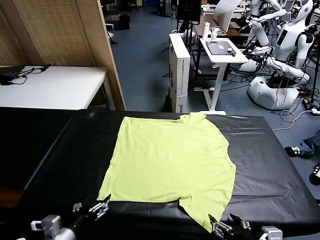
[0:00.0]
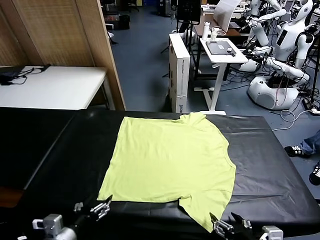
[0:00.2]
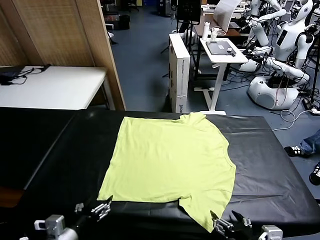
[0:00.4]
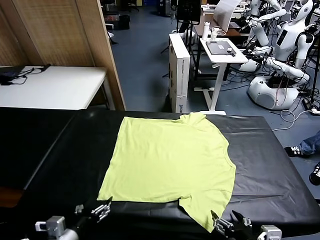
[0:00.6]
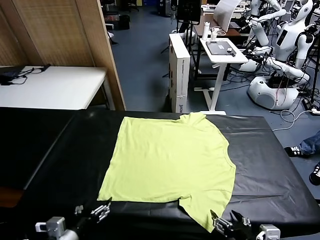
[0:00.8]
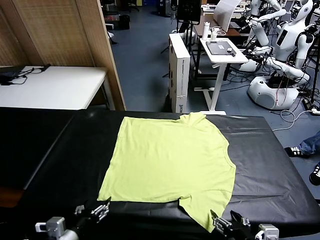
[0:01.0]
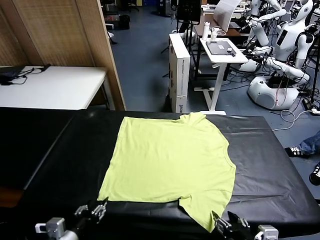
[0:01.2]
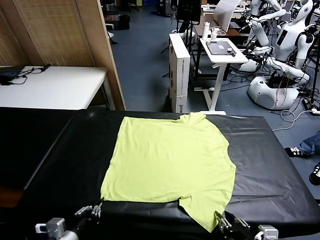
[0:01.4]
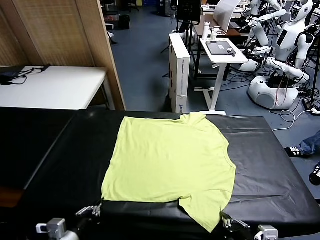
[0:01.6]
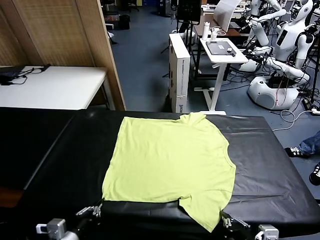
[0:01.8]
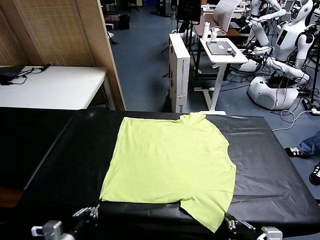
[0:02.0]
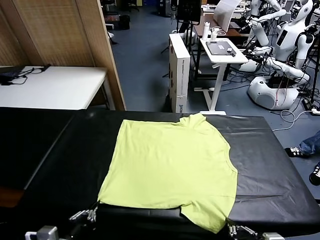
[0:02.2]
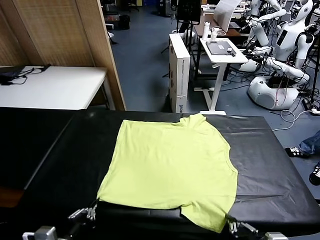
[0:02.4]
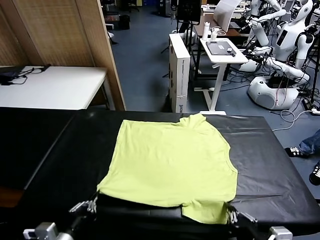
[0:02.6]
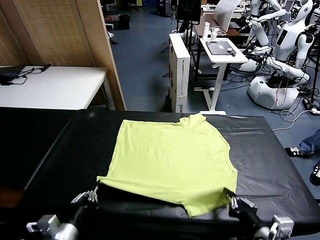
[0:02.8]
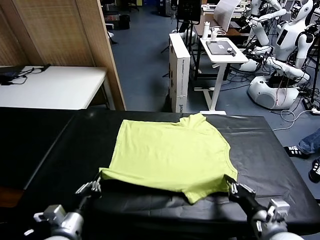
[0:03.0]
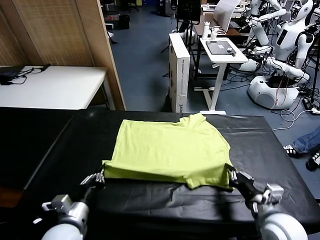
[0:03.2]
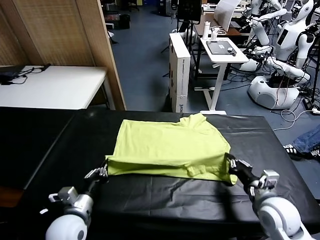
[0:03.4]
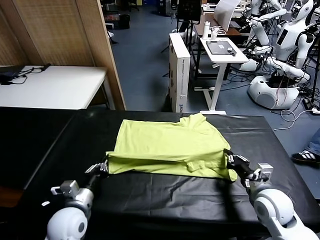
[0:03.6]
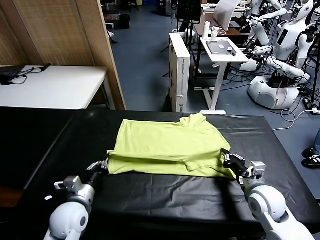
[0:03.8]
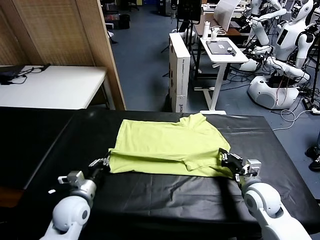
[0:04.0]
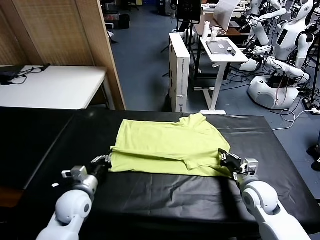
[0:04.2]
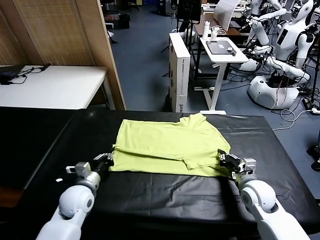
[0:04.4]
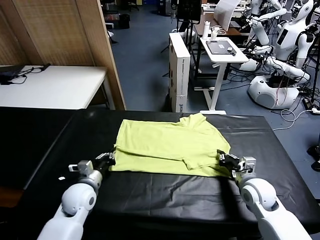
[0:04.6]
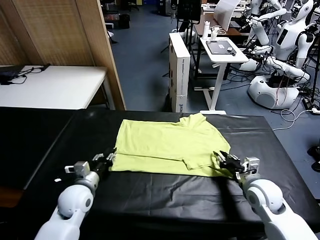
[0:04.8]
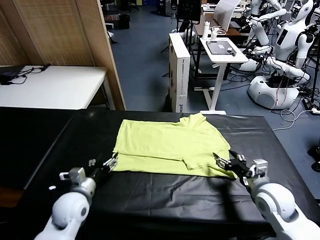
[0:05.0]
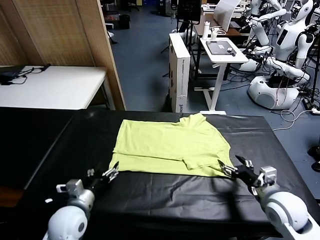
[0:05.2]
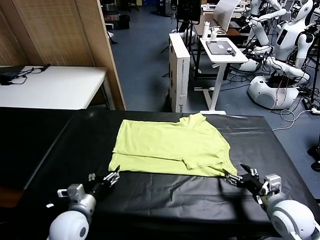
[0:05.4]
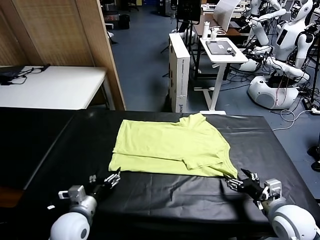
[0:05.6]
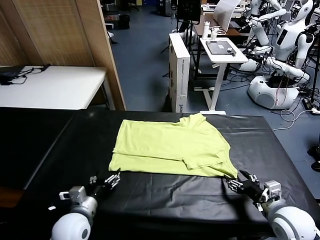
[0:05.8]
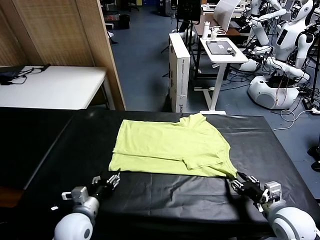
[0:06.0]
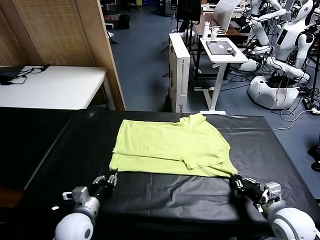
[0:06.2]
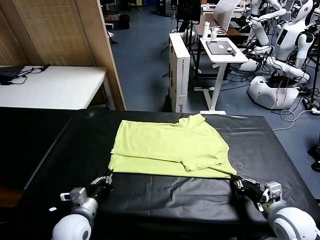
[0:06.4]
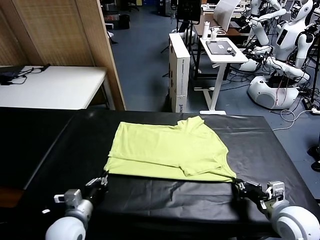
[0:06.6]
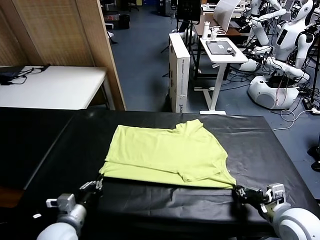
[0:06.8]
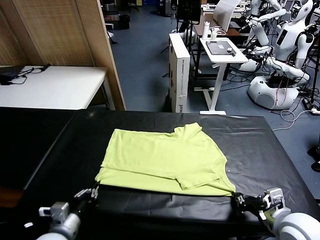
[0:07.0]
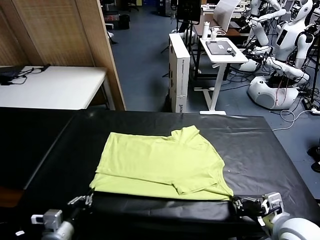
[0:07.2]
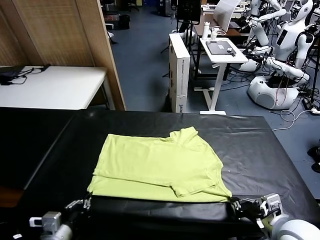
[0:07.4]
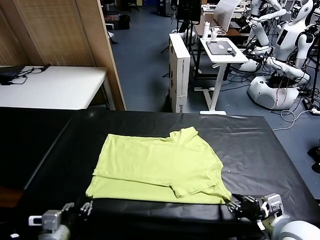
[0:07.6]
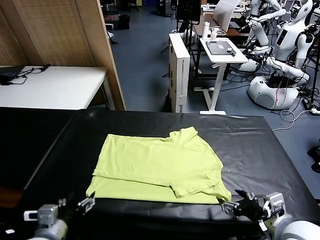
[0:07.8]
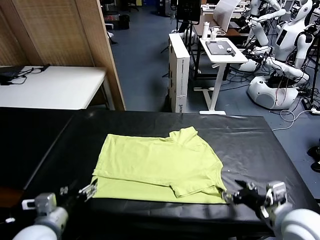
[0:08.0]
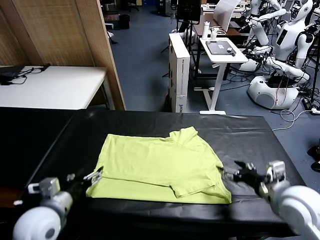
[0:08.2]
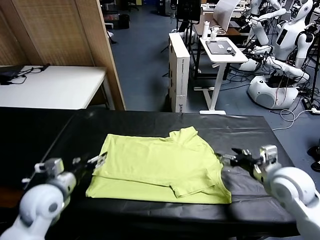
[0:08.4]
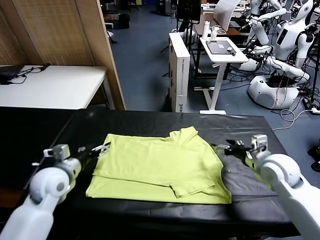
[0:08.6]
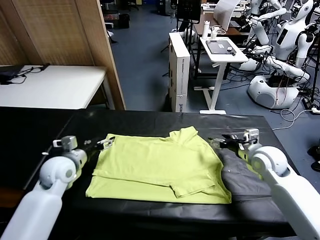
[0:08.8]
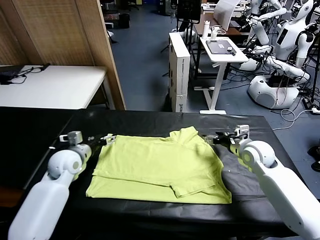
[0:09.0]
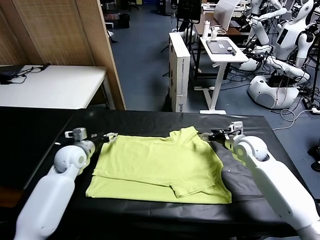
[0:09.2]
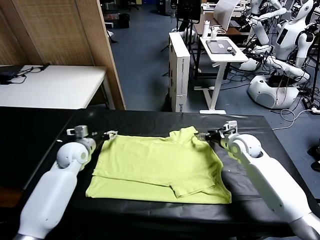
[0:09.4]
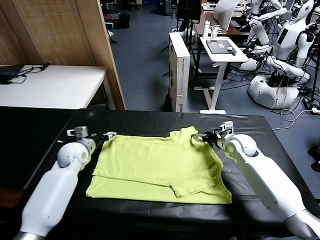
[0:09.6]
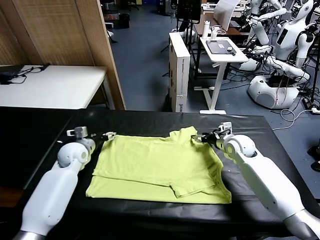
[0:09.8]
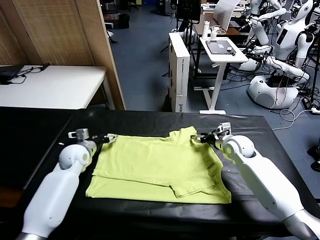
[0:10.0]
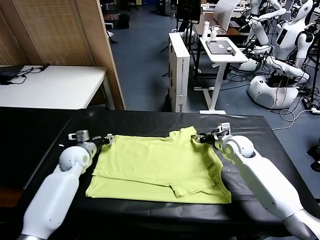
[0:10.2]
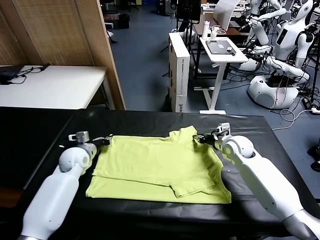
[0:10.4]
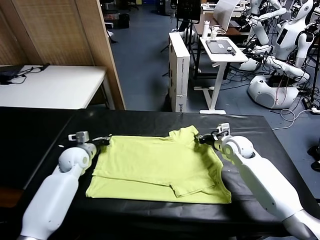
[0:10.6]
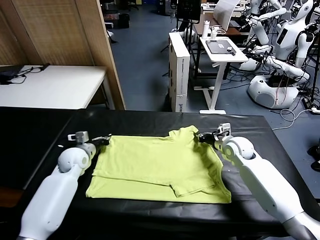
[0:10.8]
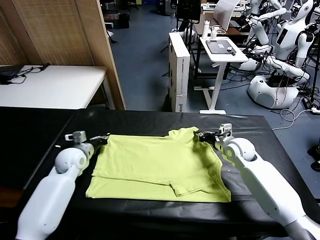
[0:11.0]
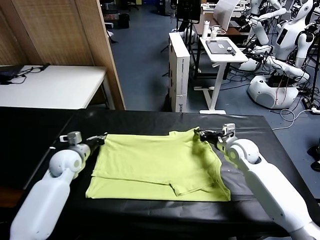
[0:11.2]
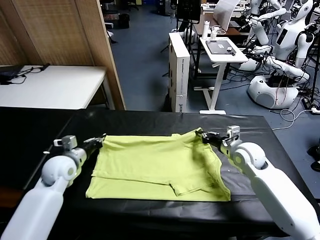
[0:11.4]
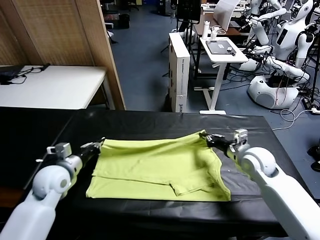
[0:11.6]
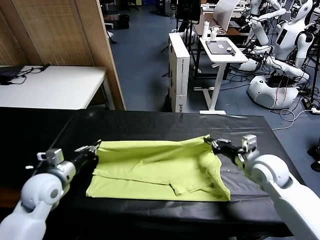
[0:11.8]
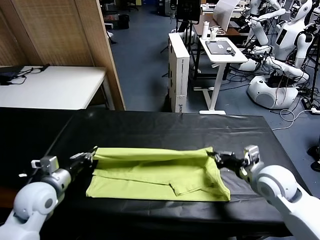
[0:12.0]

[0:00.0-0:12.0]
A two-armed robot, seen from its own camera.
Task of the whole recording: fold and organize the clothes.
Step, 0:00.0 to 0:01.6: use both grippers simultaneously to clamp the lower edge of the clothing fabric.
Step, 0:01.8 to 0:04.8: use both grippers to drag the lower edge of the fabric forward and fold it over the upper edge.
Step, 0:05.0 to 0:07.6: Drag the clothes downward with both gripper.
Step, 0:07.8 to 0:10.6: use both grippers simultaneously to clamp the upper edge of the clothing fabric.
0:01.6 to 0:03.0: The right gripper heads forward, covering roughly 15 cm. Meanwhile the left gripper is displaced forward by roughly 5 cm.
0:03.0 to 0:04.4: The left gripper goes about 10 cm forward. Meanwhile the right gripper heads forward, covering about 5 cm, and opens up.
0:04.4 to 0:06.0: Both grippers travel together backward, about 10 cm. The right gripper closes up; the left gripper opens, then closes once more.
0:06.0 to 0:07.6: The right gripper travels upward by some 10 cm, and opens its fingers. Meanwhile the left gripper heads upward and backward, covering about 10 cm, and opens its fingers.
0:07.6 to 0:09.0: Both grippers move forward, roughly 30 cm.
0:09.0 to 0:10.4: The left gripper closes its fingers; the right gripper closes its fingers.
0:10.4 to 0:12.0: Both grippers travel together backward, about 20 cm.

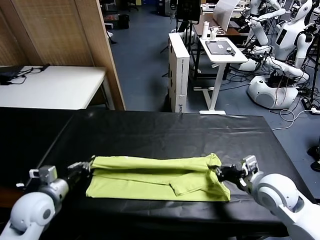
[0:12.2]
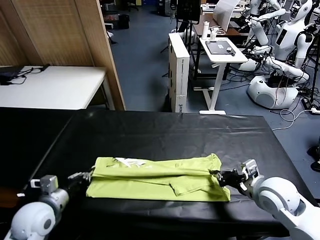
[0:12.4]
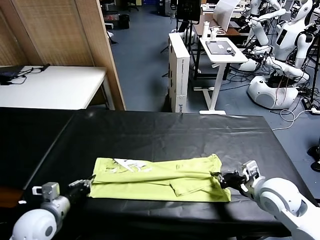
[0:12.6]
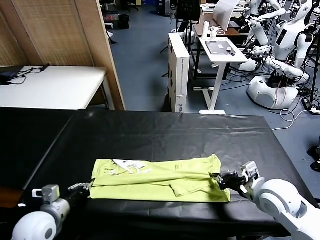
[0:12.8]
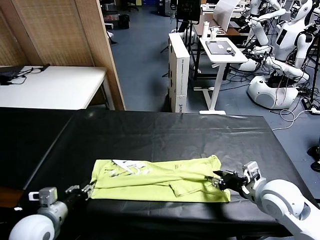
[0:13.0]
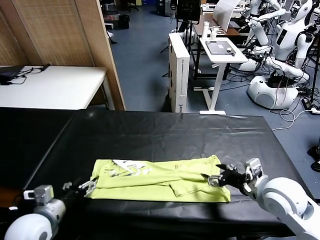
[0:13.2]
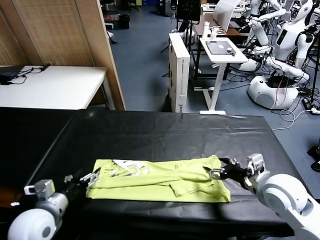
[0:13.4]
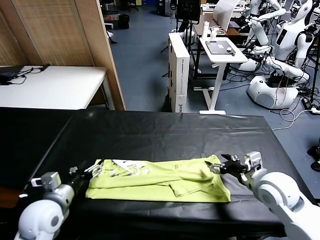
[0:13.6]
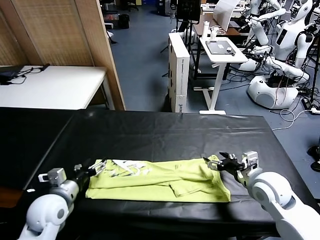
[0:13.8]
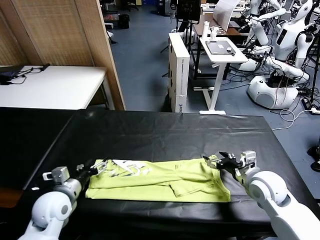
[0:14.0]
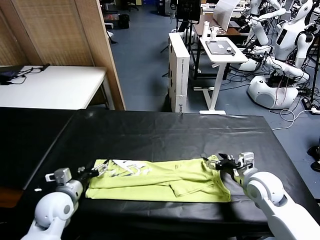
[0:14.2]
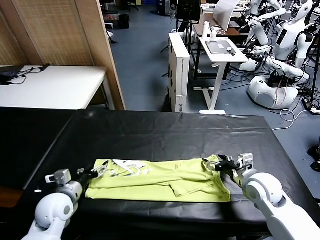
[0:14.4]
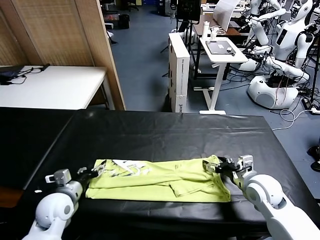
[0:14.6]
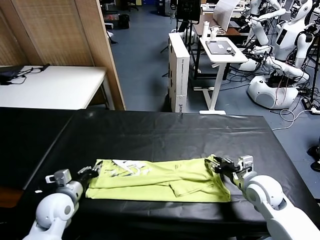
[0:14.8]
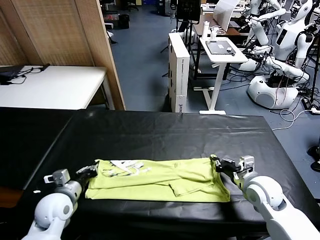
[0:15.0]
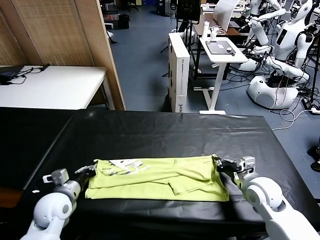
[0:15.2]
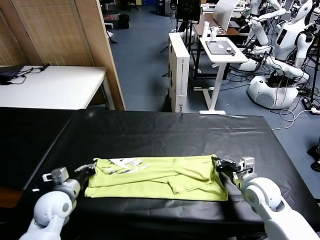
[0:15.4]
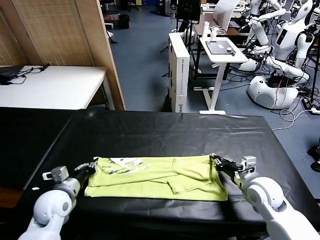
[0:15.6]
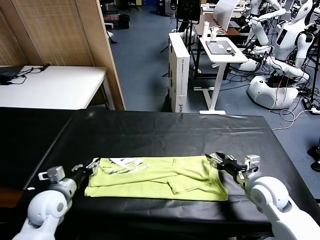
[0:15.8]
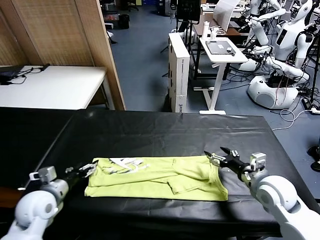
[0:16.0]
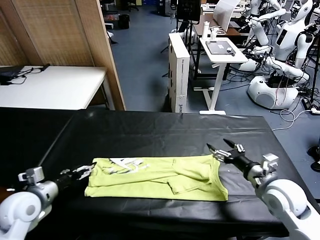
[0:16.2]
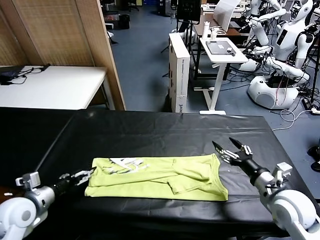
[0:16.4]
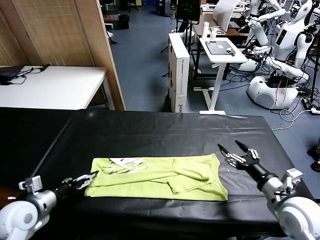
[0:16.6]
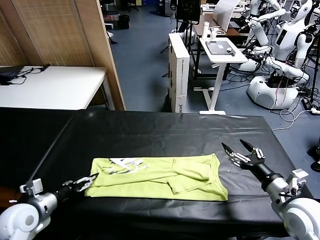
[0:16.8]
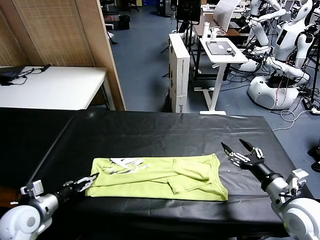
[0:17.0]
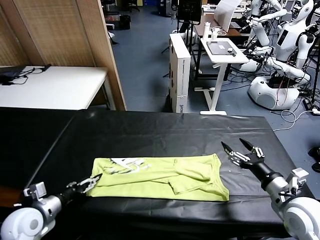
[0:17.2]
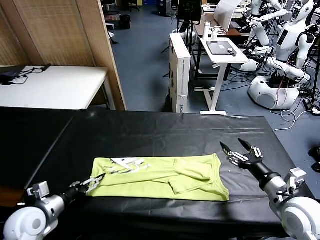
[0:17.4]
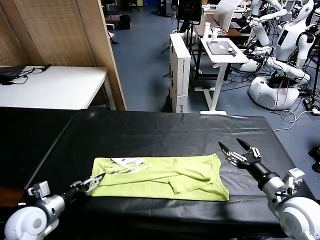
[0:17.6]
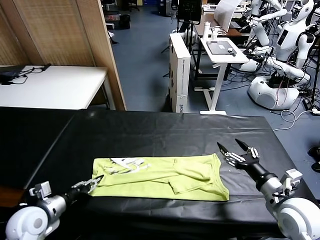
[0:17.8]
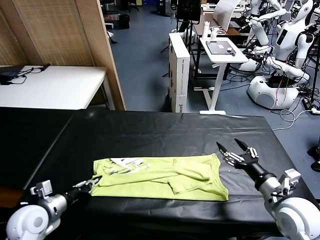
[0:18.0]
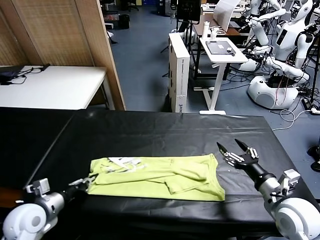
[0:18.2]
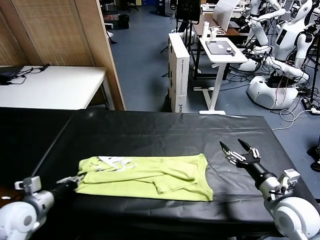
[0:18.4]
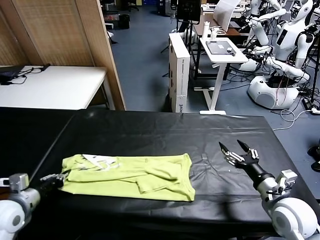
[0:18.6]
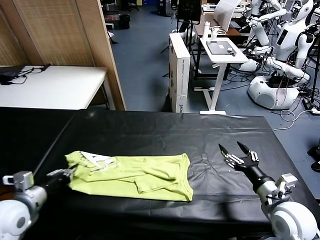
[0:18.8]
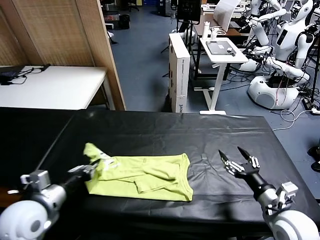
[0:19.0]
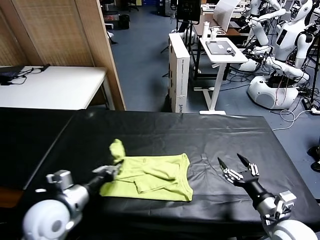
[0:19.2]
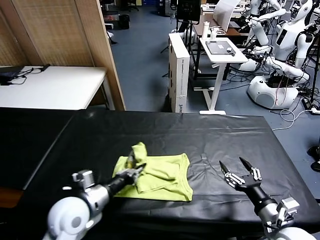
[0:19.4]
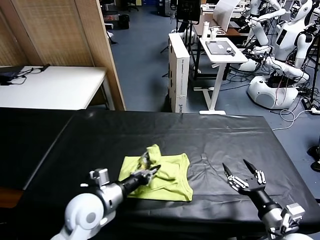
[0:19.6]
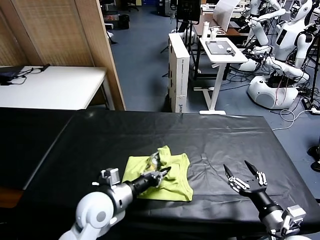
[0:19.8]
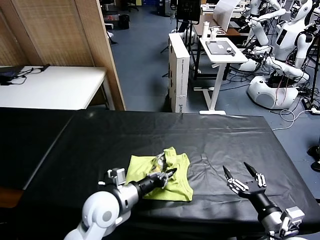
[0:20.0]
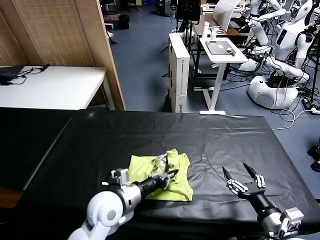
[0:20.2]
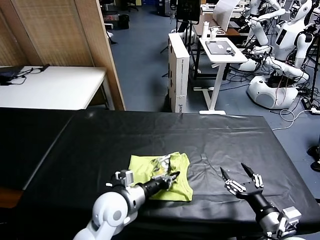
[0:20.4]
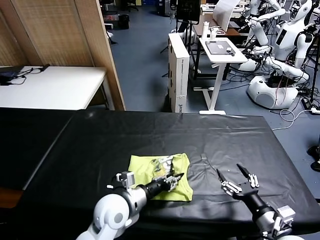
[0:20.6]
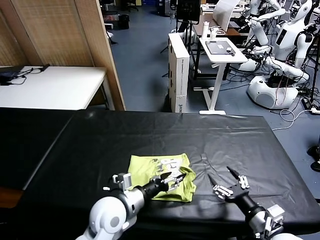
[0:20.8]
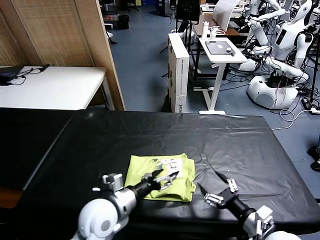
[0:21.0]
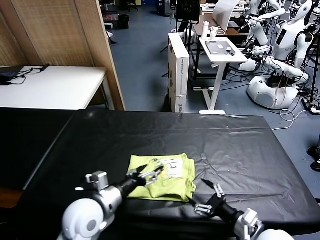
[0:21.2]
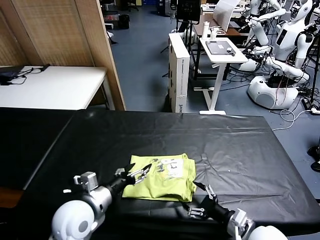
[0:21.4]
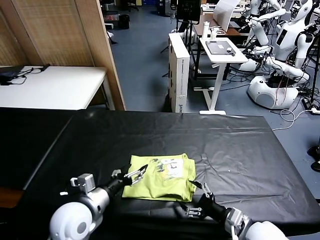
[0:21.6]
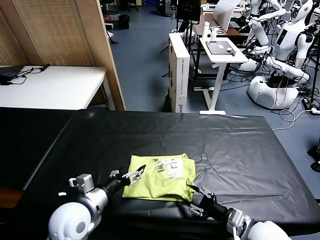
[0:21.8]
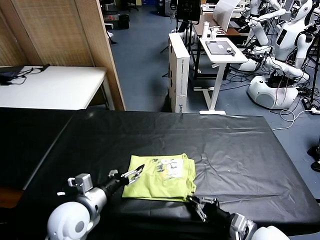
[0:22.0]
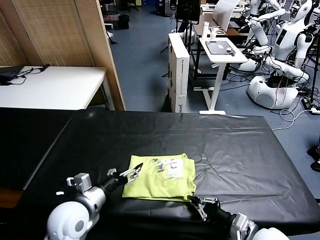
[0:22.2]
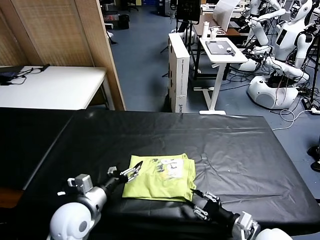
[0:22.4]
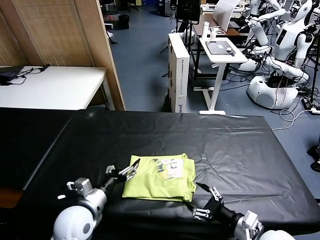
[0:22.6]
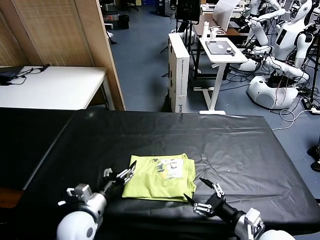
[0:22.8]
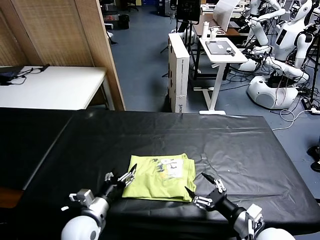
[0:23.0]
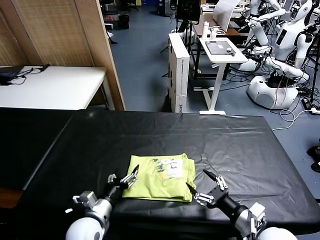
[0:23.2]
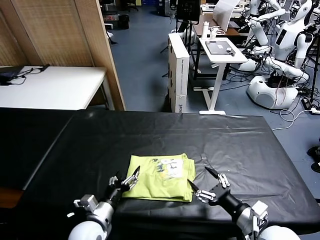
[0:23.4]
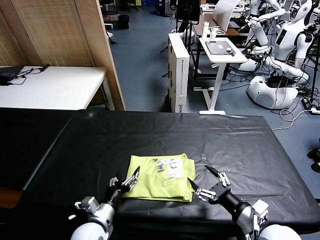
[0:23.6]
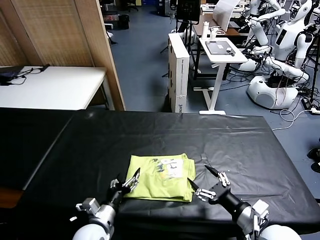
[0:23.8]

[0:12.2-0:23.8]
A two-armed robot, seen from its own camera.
Task of the whole recording: fold and organize the clothes.
Step, 0:13.2 to 0:18.0: use the left gripper to clamp the left edge of the fabric.
Step, 0:18.2 to 0:20.8: use the left gripper to drag the left edge of the fabric to the left and folds it over the right edge.
0:12.2 to 0:13.6: The right gripper opens. The left gripper opens.
0:13.6 to 0:15.0: The left gripper closes. The right gripper closes up.
0:15.0 to 0:16.6: The right gripper goes about 10 cm backward and upward, and opens; the left gripper heads to the left, covering some 5 cm, and opens up.
0:16.6 to 0:18.0: The left gripper closes up.
0:18.0 to 0:19.4: The right gripper shifts roughly 5 cm backward, while the left gripper heads to the right, covering about 15 cm.
0:19.4 to 0:21.0: The left gripper heads to the right, covering about 5 cm, and opens its fingers.
0:21.0 to 0:22.4: The right gripper closes. Meanwhile the left gripper heads to the left, covering roughly 5 cm.
0:22.4 to 0:23.8: The right gripper opens. Meanwhile the left gripper heads downward, covering some 10 cm.
